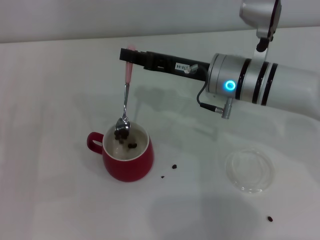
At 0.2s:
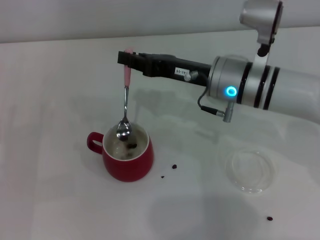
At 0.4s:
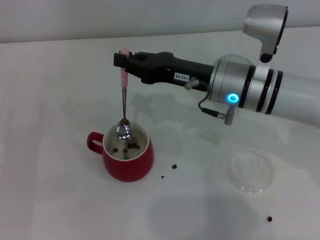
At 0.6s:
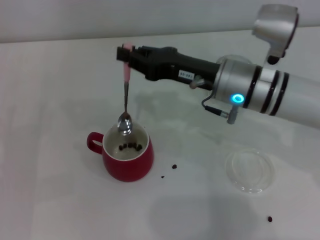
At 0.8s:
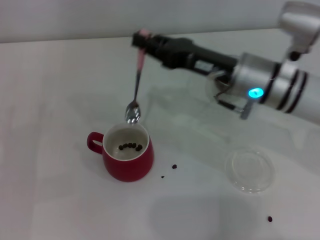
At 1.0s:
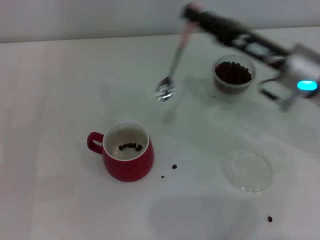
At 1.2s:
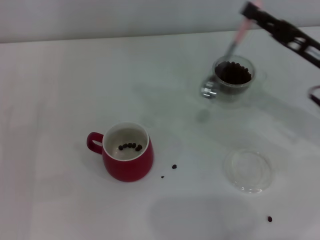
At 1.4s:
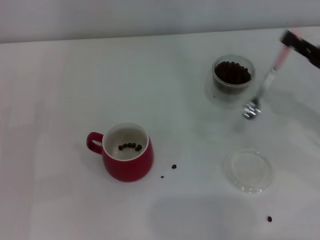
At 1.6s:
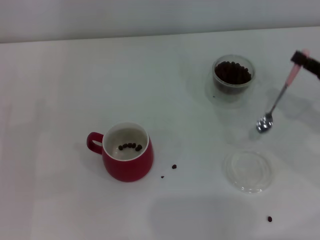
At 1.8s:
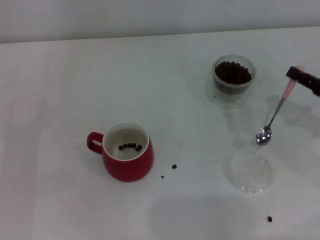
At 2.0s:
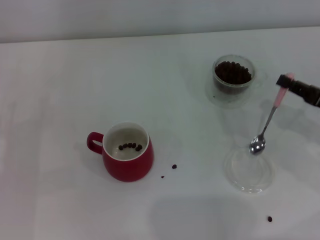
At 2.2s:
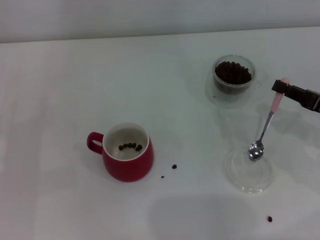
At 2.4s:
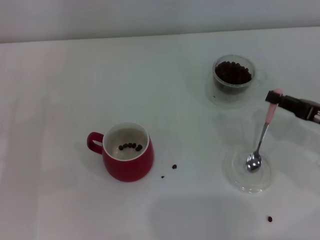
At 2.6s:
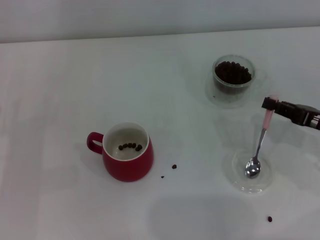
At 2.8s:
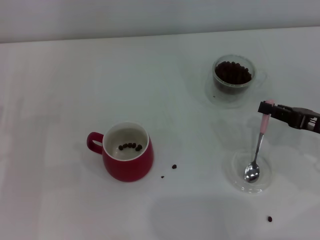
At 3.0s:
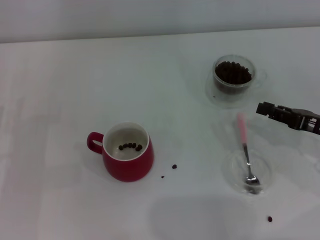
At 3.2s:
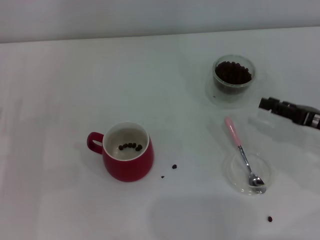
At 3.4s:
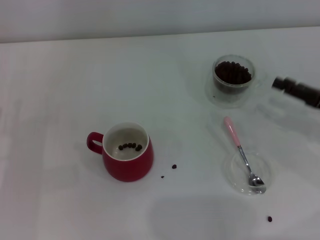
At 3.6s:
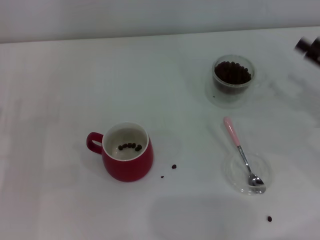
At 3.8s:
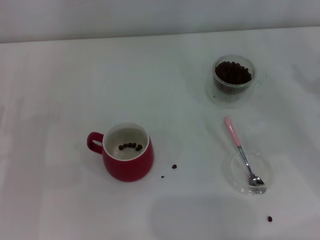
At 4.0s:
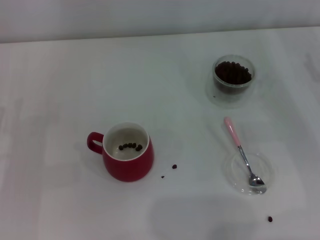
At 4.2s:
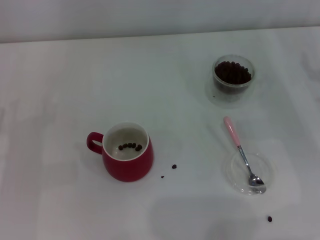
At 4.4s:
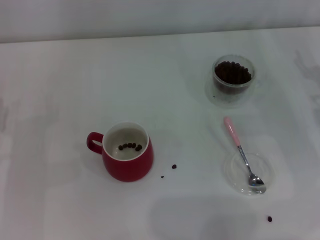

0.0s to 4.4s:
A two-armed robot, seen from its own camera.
Task of the whole recording: Use a pink spoon to take out the coffee beans from the glass and pour them into the red cup.
Step, 0.8s to 3.0s: Place the spoon back in its original place with the right gripper.
0.0s to 1.4s: The right gripper shifts about 20 cm to the right.
1.4s to 3.0s: The right gripper ends up roughly 5 cm from where it was.
3.0s to 4.4s: The right gripper moves forward, approximately 5 cm, and opens its fingers.
